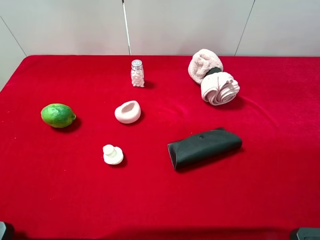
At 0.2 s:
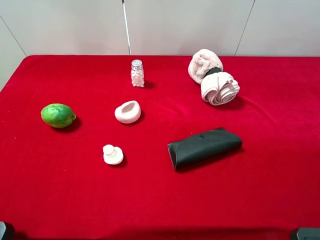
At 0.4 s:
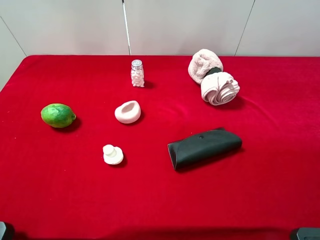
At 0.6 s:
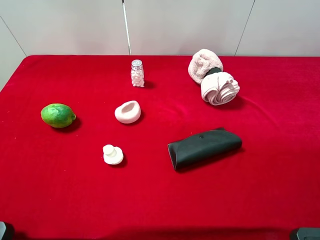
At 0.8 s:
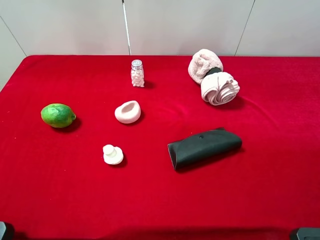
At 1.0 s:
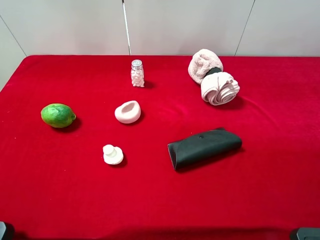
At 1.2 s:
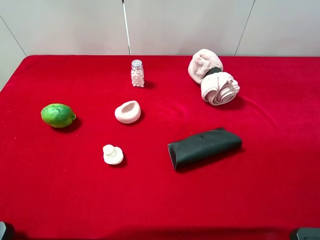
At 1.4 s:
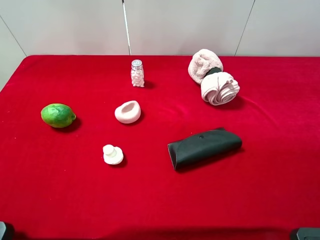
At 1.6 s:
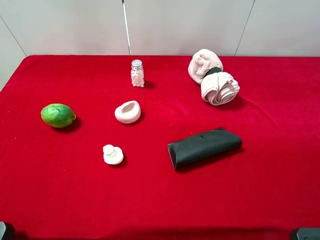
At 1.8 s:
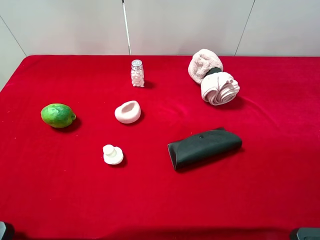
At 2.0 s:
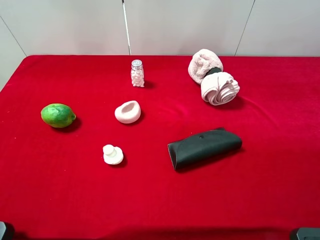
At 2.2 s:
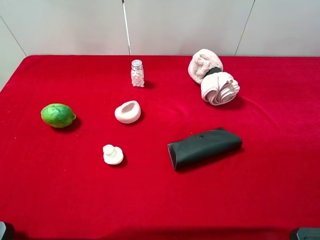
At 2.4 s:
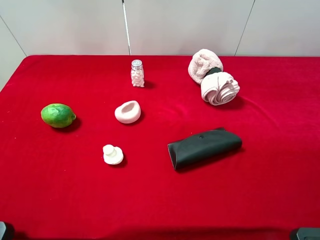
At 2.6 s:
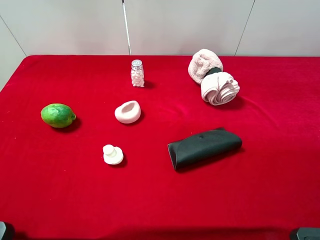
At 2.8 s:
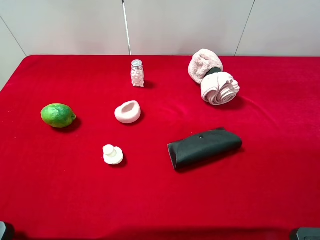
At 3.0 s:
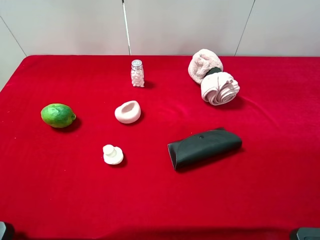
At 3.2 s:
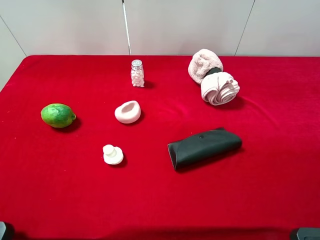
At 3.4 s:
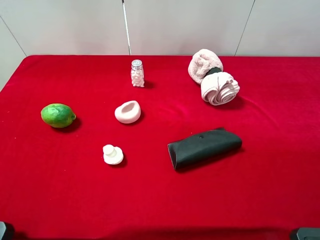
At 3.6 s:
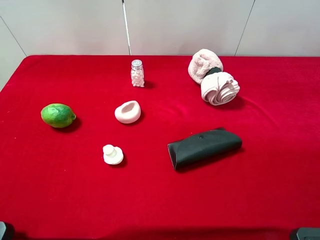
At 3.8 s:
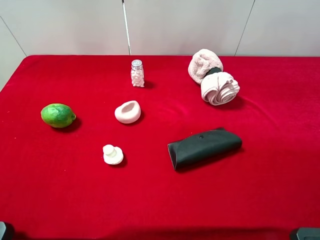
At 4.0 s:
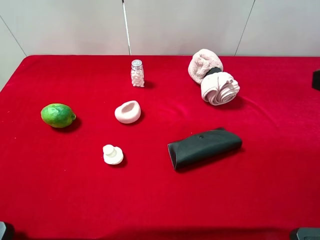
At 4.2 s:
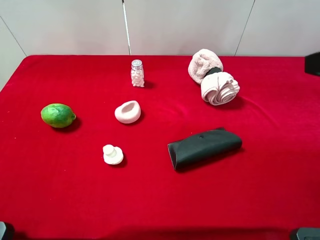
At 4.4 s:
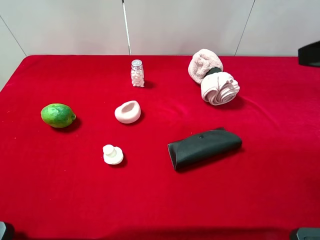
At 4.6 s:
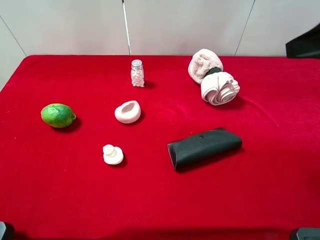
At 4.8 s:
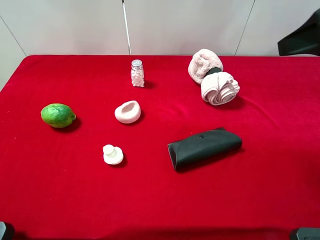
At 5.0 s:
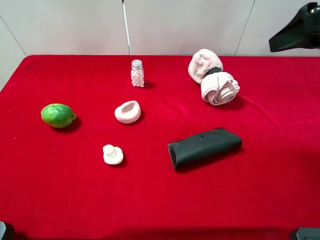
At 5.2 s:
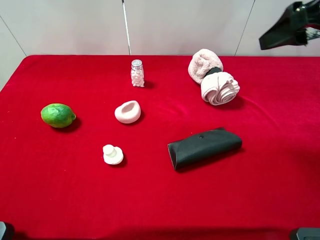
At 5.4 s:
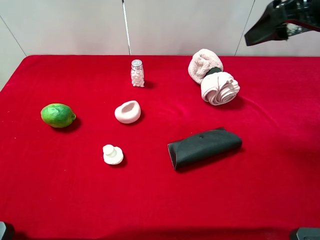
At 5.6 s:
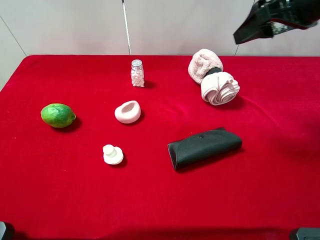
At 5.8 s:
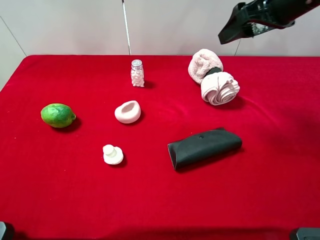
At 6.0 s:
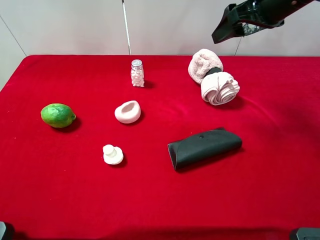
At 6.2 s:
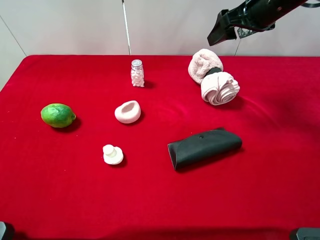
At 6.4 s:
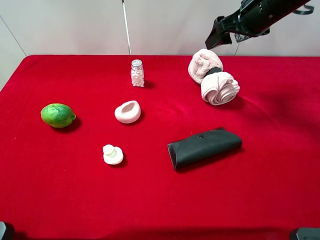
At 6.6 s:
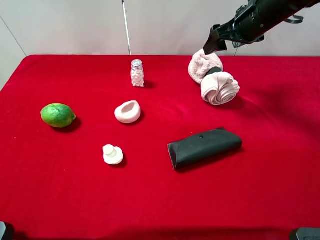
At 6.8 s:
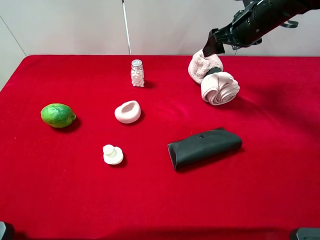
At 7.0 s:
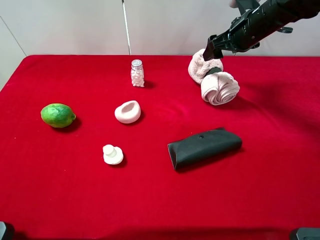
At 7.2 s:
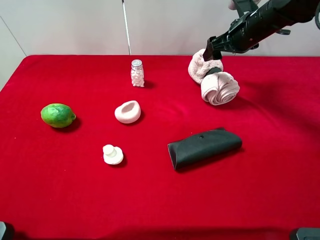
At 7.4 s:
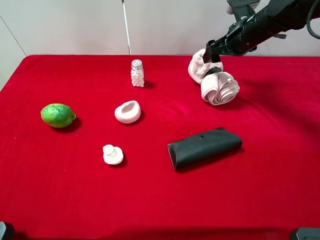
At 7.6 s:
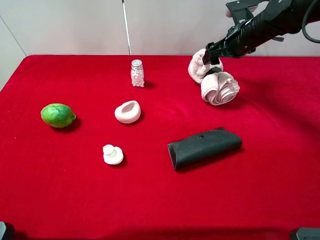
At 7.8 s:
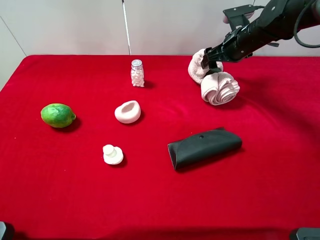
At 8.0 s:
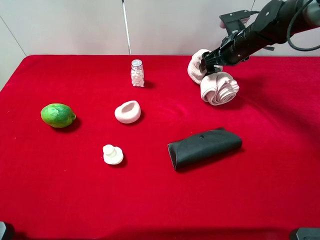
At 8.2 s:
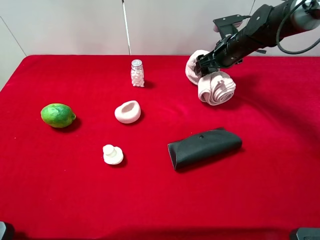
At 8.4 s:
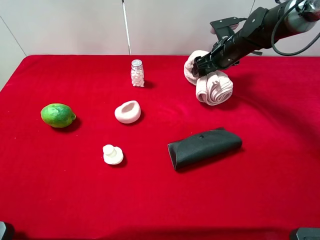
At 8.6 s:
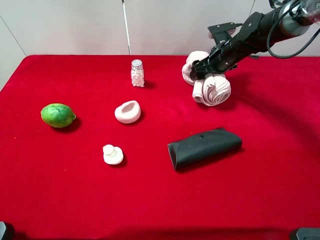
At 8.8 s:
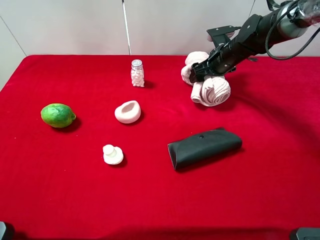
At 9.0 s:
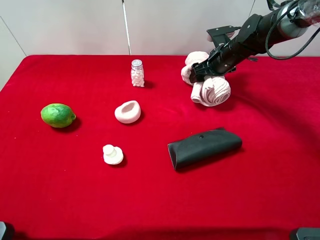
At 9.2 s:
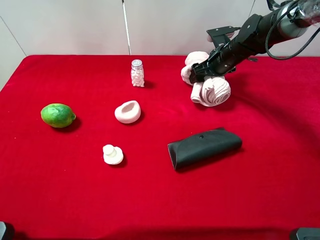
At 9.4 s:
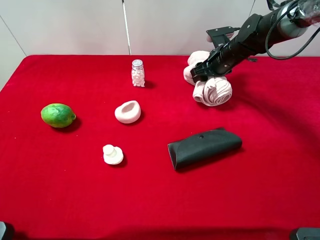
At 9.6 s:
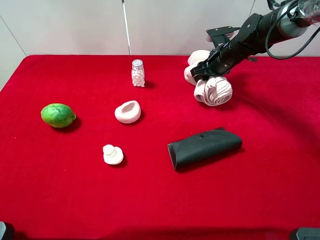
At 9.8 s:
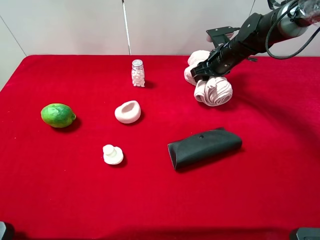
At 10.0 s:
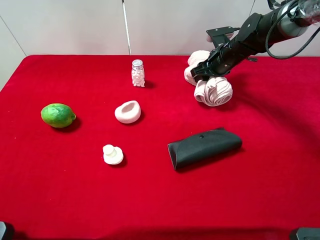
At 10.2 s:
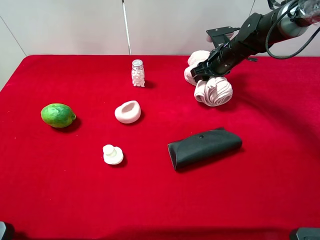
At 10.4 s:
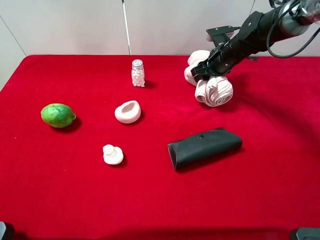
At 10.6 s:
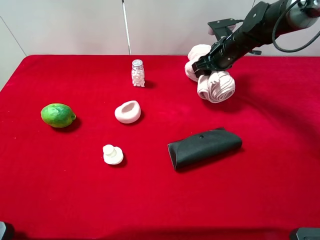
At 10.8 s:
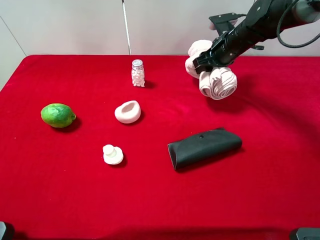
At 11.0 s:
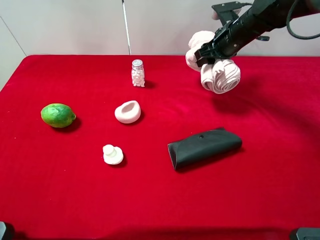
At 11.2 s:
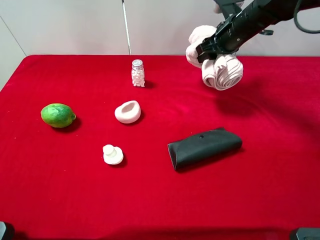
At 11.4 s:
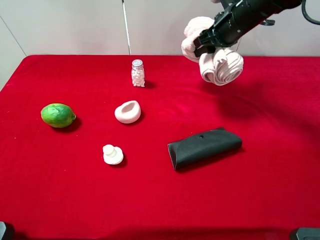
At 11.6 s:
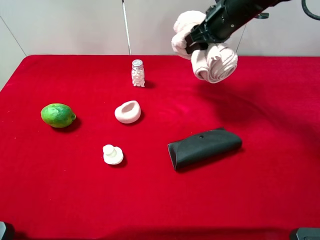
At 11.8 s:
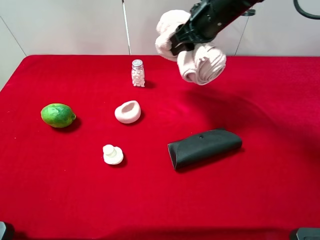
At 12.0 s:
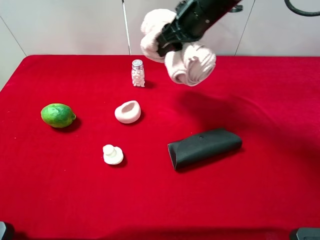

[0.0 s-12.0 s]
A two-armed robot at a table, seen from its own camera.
Task of the whole recording: the gripper move the object.
Step, 0.0 to 9.8 s: Grasp the pink towel with the right gripper.
0.0 to 1.6 s: Neither gripper changes place.
4.4 to 6.0 s: The right gripper is displaced forward by approximately 20 cm.
6.0 to 7.6 s: The right gripper moves downward and forward, about 15 cm.
7.6 to 9.0 s: The right gripper goes approximately 5 cm downward.
9.0 to 10.4 s: The right gripper closes up.
10.4 to 12.0 s: The right gripper is displaced upward, to the left and backward by approximately 20 cm.

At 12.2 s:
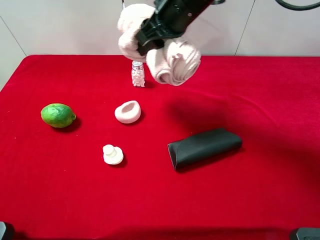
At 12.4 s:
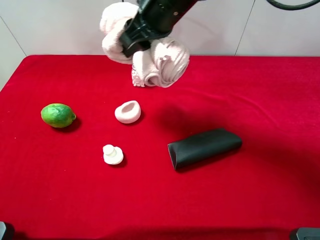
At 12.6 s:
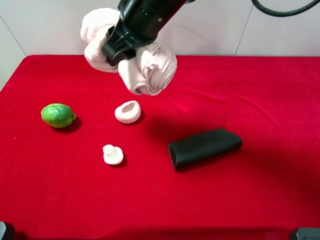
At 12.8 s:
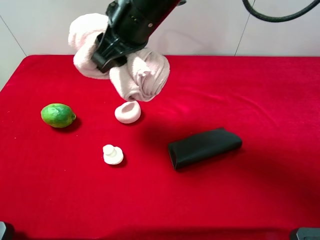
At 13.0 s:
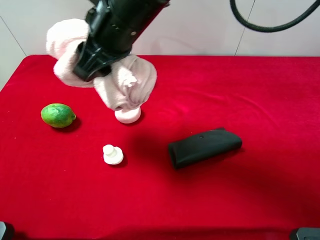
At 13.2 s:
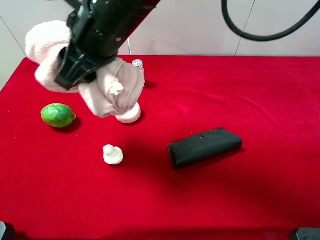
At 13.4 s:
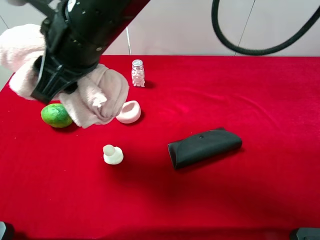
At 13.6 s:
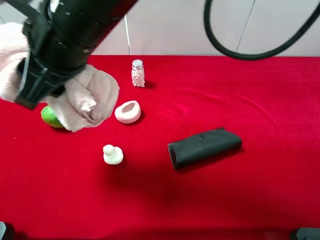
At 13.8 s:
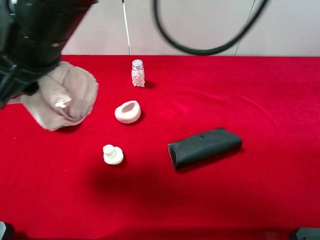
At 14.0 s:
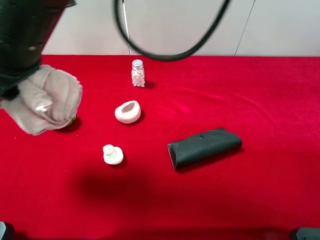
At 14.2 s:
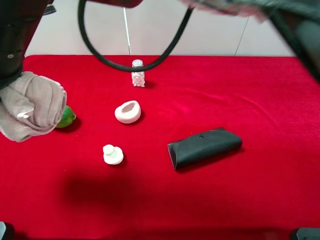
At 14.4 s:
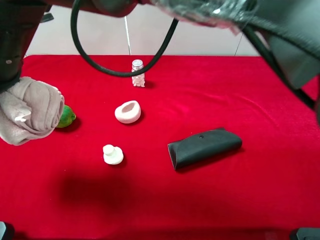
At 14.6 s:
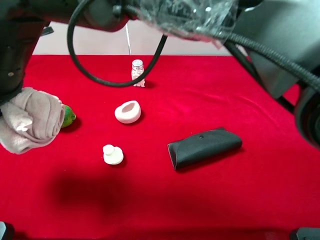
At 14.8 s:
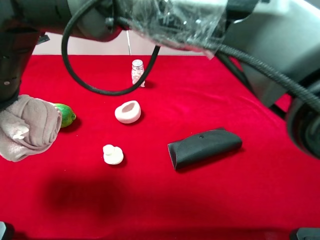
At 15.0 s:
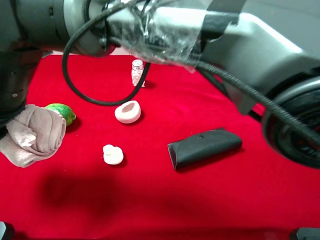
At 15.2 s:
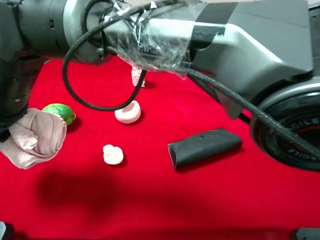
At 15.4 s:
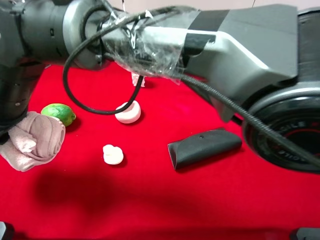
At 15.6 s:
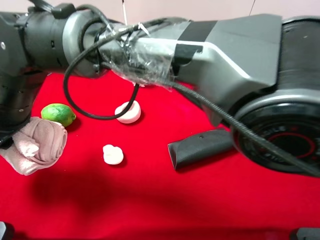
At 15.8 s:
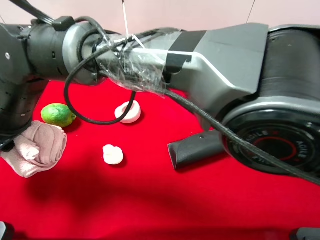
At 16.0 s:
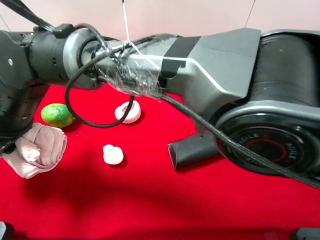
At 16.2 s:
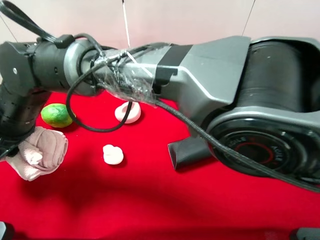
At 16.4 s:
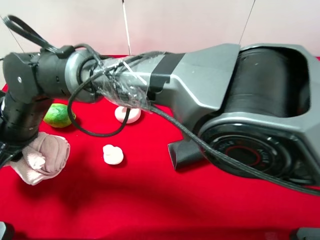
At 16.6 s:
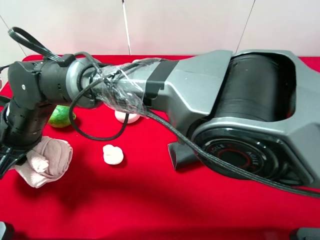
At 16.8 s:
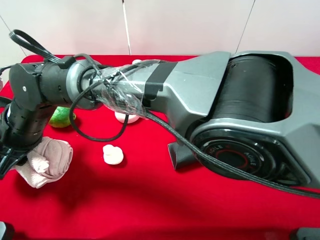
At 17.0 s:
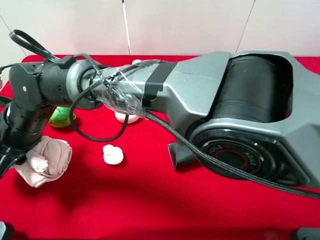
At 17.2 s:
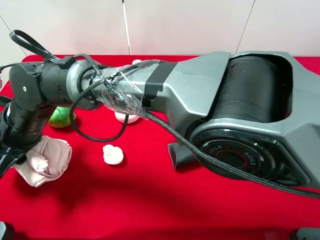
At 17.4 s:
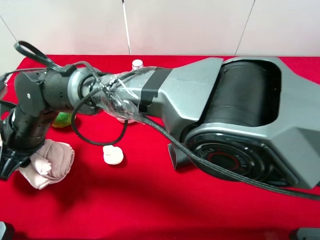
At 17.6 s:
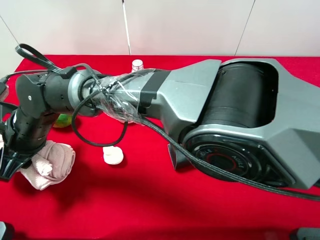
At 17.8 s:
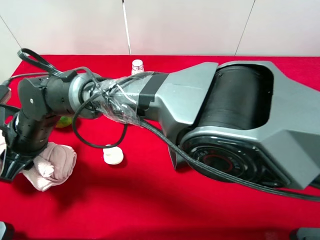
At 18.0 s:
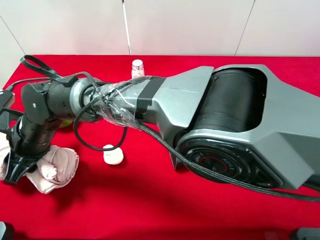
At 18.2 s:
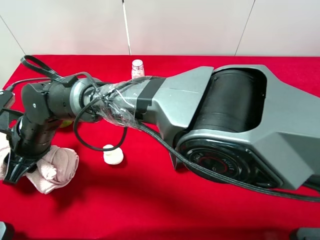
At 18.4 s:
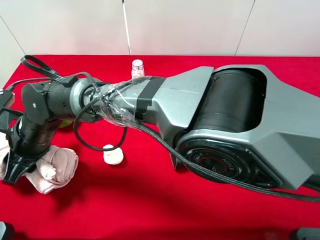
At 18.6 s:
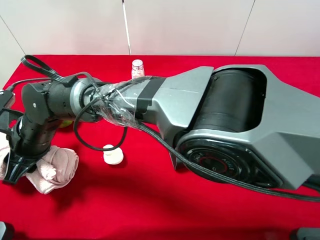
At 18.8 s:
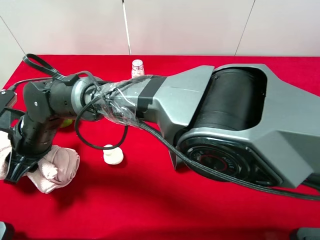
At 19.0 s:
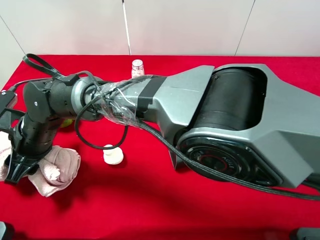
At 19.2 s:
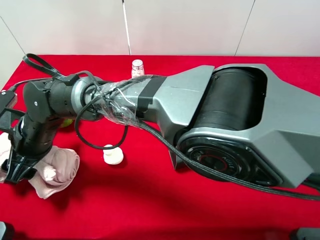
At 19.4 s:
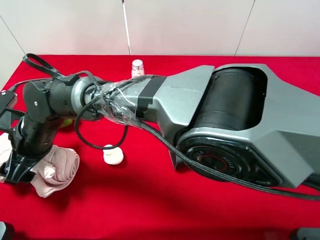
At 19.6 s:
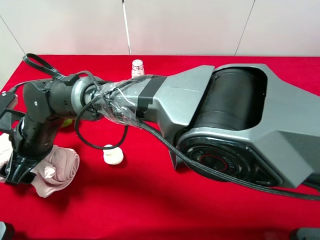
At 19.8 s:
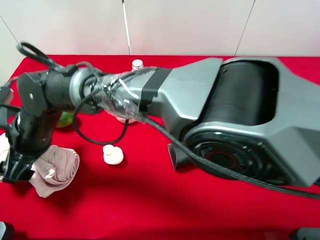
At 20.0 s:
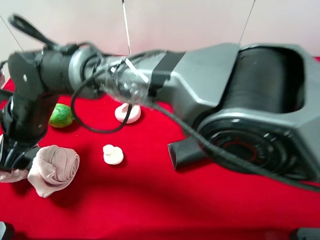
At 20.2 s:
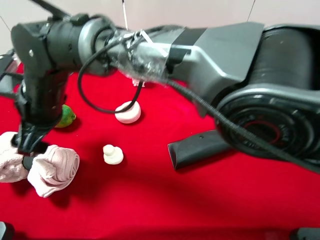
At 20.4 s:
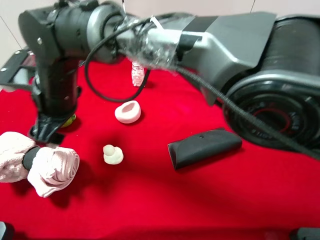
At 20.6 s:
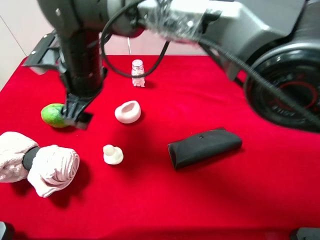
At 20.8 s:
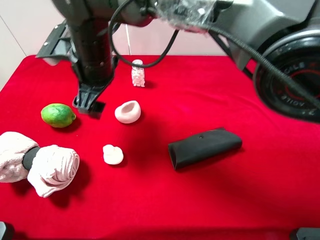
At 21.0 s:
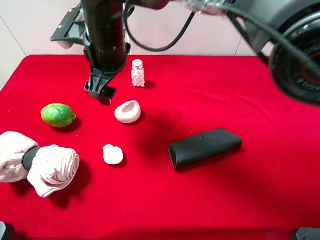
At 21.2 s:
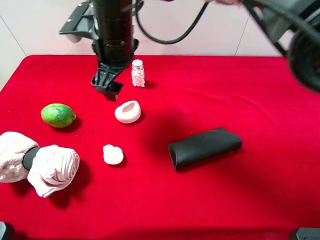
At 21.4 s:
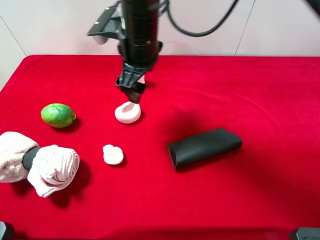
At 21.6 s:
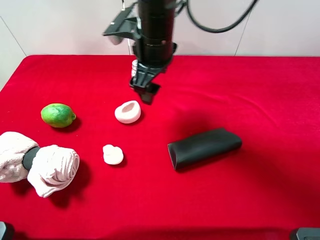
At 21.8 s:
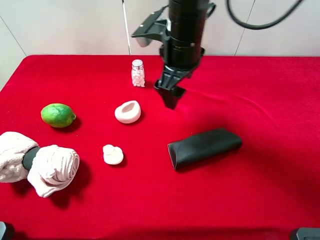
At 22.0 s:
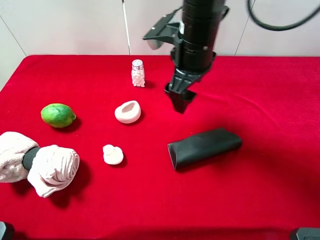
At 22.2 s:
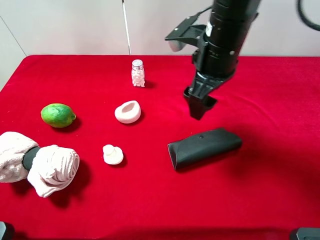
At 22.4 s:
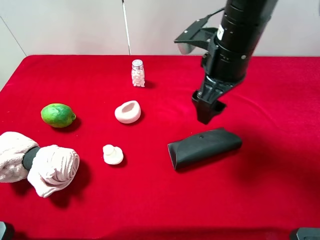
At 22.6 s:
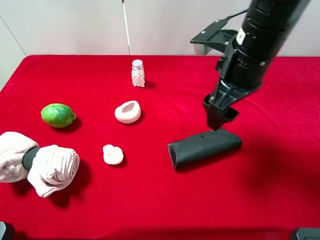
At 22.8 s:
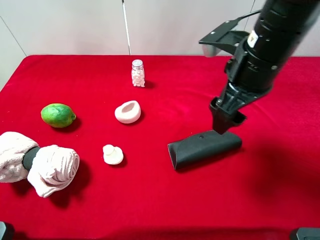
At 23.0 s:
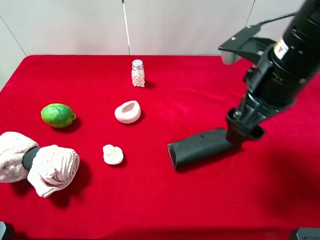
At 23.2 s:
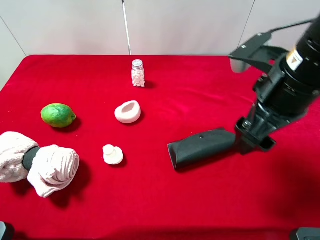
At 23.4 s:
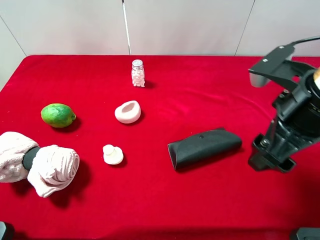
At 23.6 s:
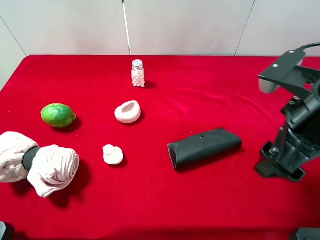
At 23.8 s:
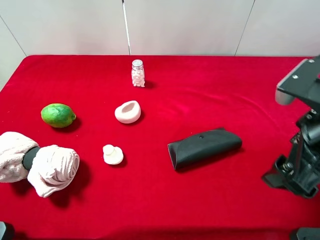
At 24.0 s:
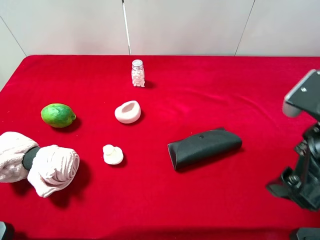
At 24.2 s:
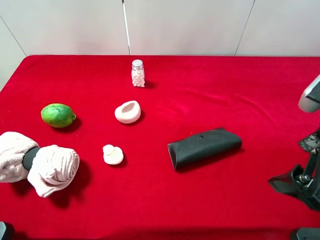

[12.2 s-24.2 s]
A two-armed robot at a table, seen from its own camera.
Task of the whole recording: the gripper move the object.
Step, 12.2 to 20.4 s: Place the pink towel on the table with the right gripper.
12.2 to 13.8 s: The right gripper travels to the left and backward by some 20 cm.
13.8 to 15.2 s: The right gripper travels downward and to the left by approximately 10 cm.
15.2 to 16.6 s: The right gripper heads downward, covering approximately 10 cm.
18.2 to 19.8 s: The right gripper opens its fingers.
19.8 to 21.2 s: The right gripper travels to the right, forward and upward by about 20 cm.
21.2 to 22.6 s: The right gripper is displaced to the right by some 20 cm.
22.6 to 24.2 s: The right gripper moves backward and to the right, some 15 cm.
